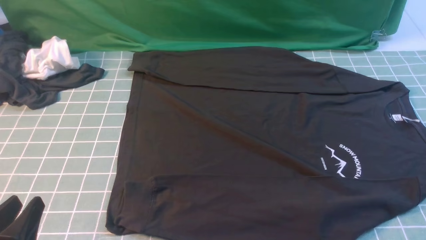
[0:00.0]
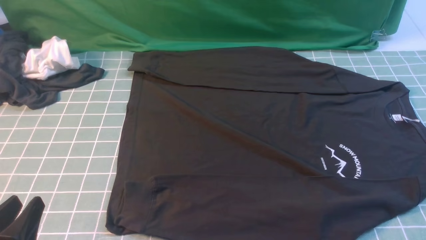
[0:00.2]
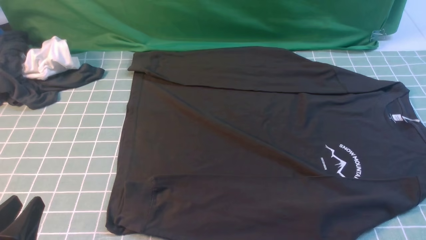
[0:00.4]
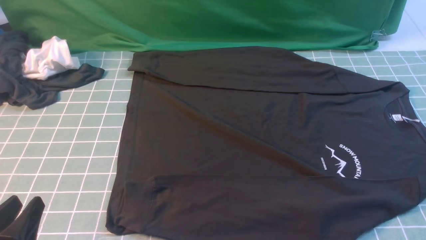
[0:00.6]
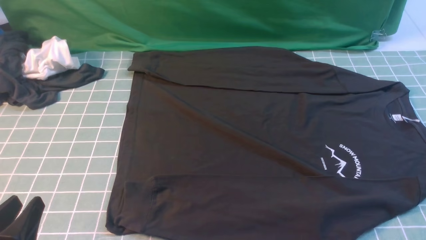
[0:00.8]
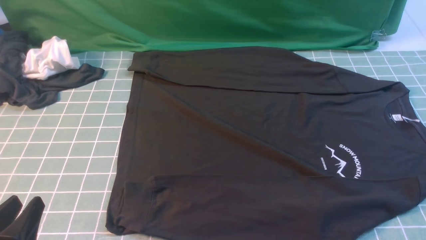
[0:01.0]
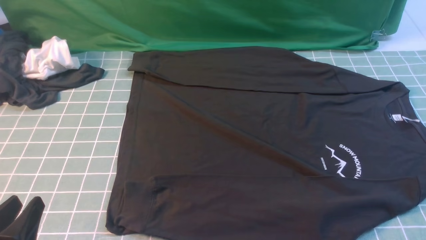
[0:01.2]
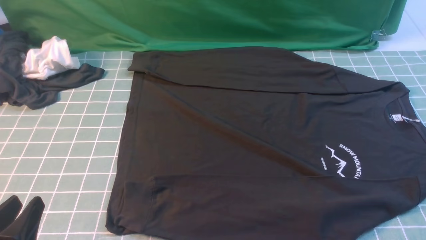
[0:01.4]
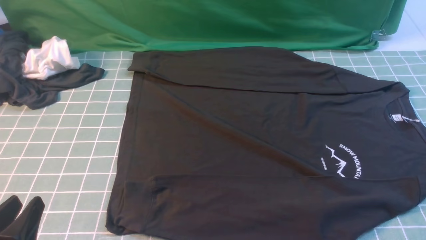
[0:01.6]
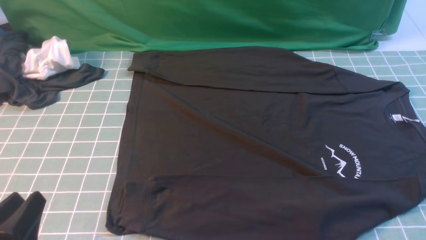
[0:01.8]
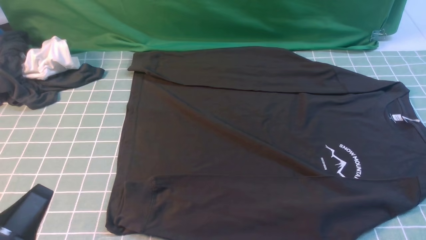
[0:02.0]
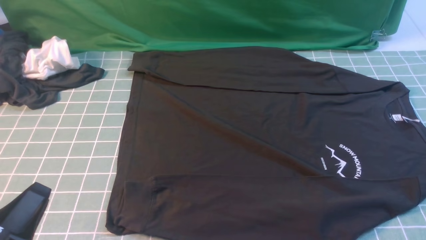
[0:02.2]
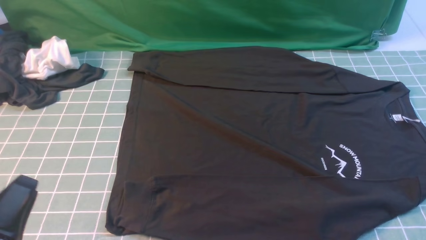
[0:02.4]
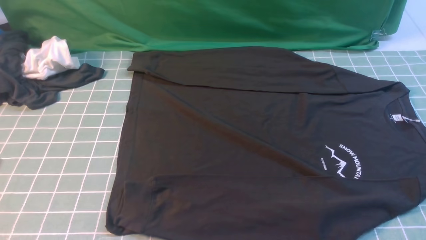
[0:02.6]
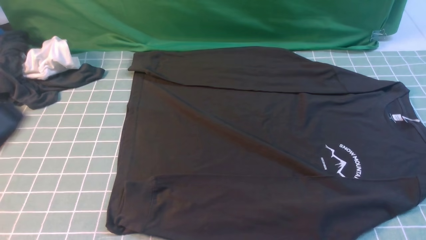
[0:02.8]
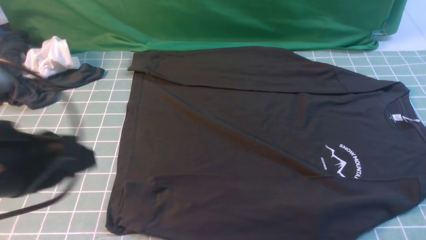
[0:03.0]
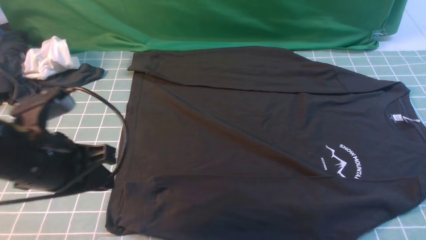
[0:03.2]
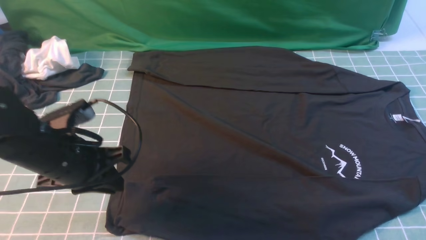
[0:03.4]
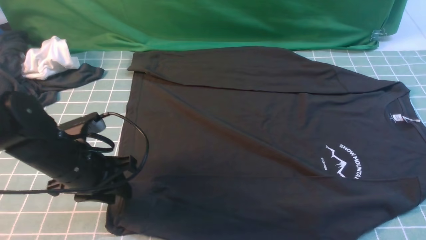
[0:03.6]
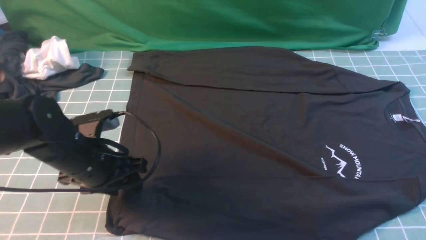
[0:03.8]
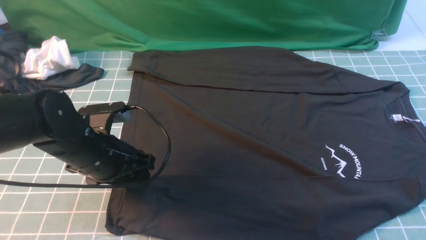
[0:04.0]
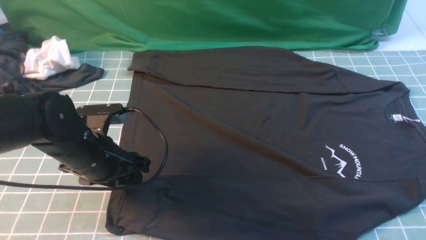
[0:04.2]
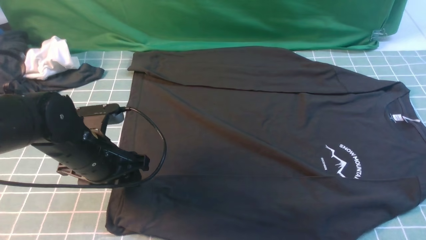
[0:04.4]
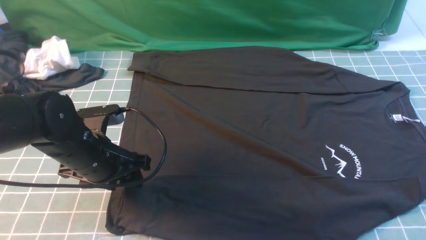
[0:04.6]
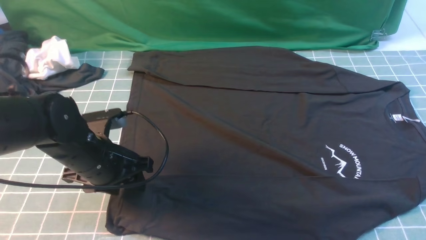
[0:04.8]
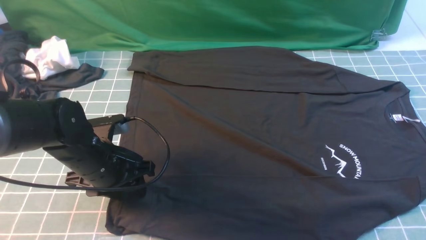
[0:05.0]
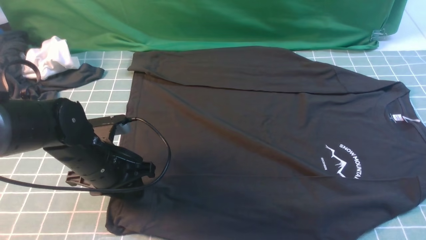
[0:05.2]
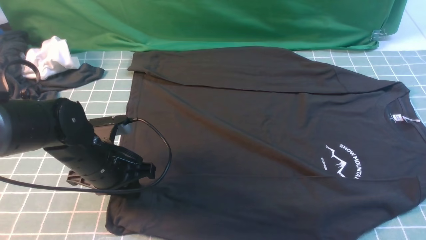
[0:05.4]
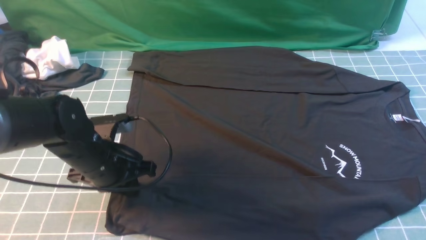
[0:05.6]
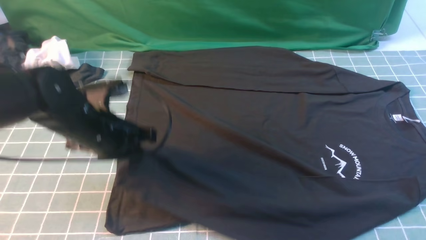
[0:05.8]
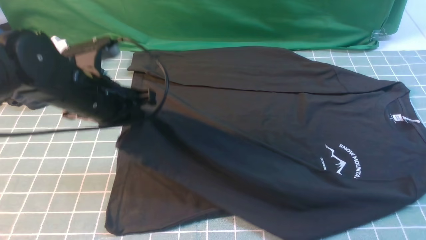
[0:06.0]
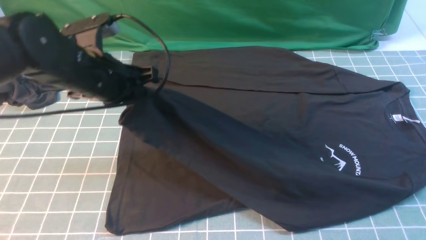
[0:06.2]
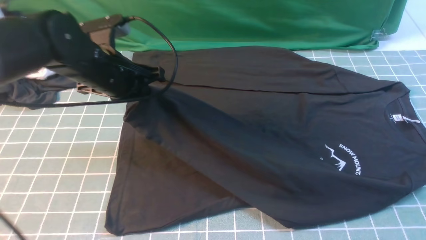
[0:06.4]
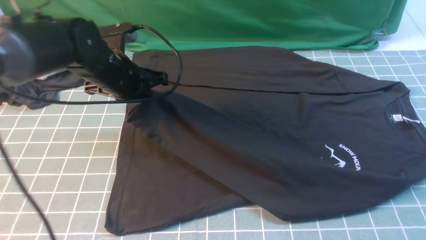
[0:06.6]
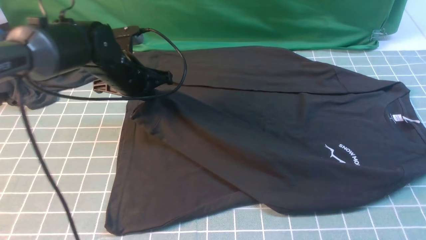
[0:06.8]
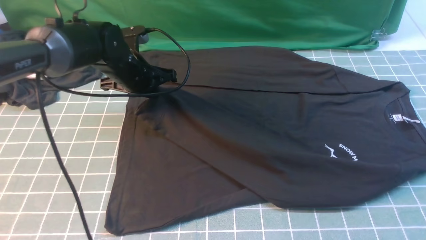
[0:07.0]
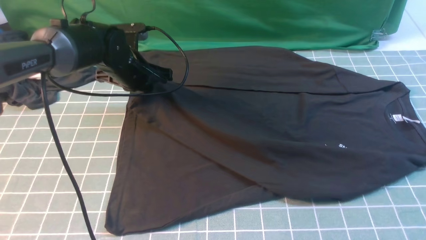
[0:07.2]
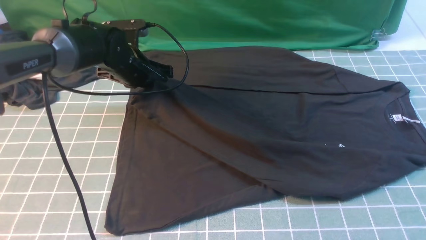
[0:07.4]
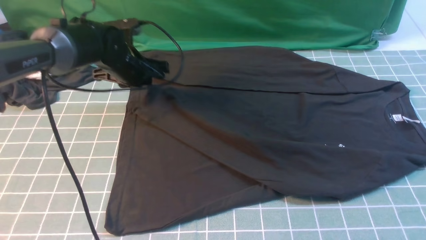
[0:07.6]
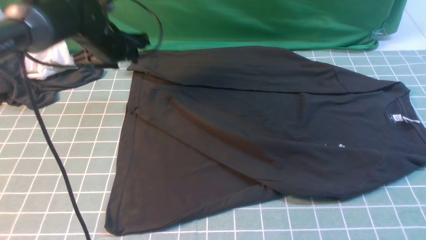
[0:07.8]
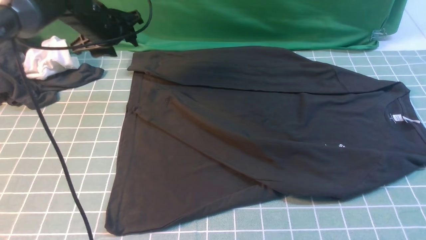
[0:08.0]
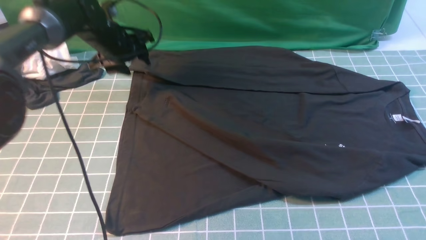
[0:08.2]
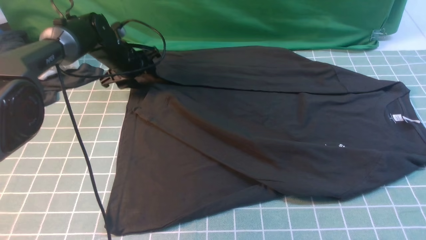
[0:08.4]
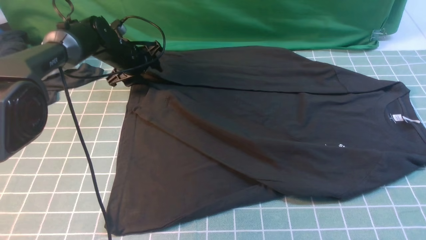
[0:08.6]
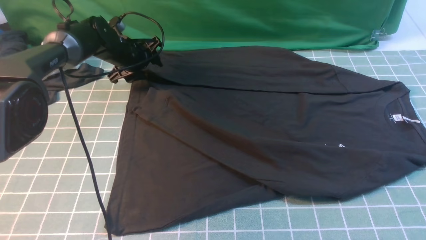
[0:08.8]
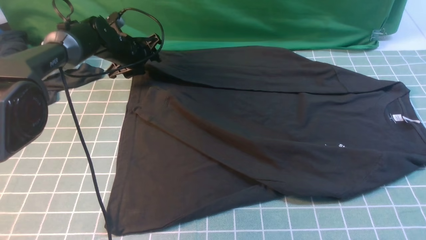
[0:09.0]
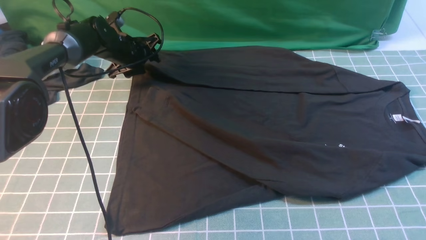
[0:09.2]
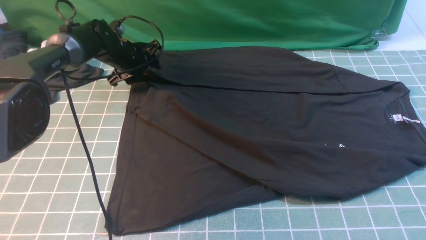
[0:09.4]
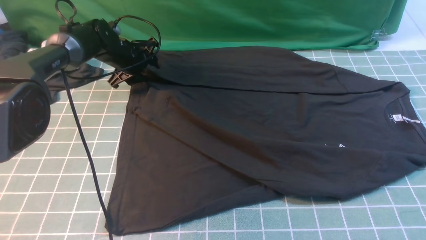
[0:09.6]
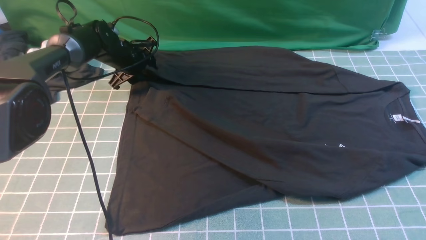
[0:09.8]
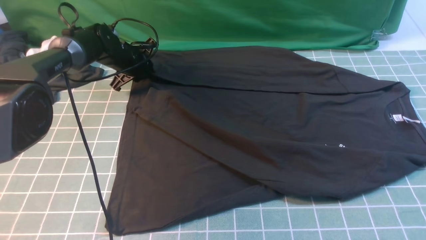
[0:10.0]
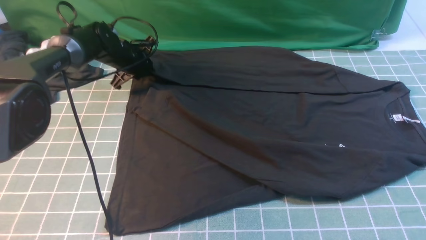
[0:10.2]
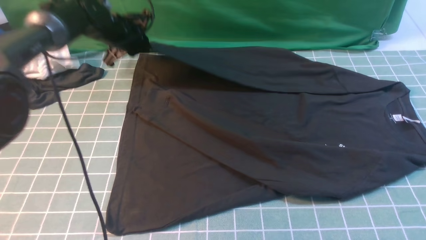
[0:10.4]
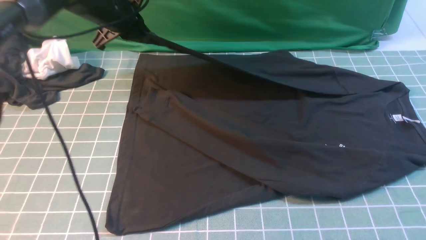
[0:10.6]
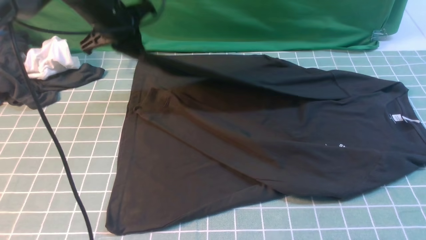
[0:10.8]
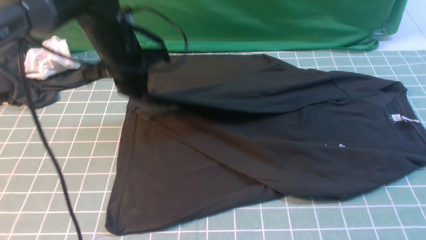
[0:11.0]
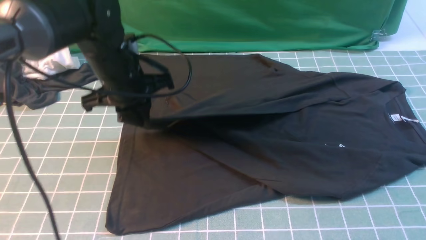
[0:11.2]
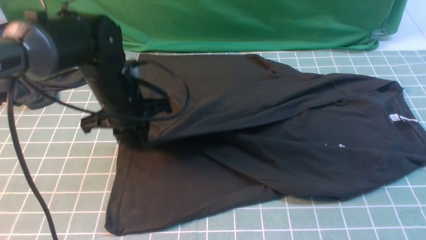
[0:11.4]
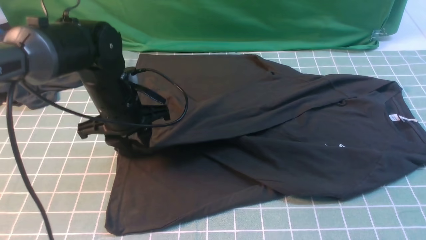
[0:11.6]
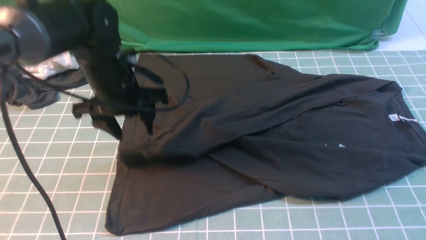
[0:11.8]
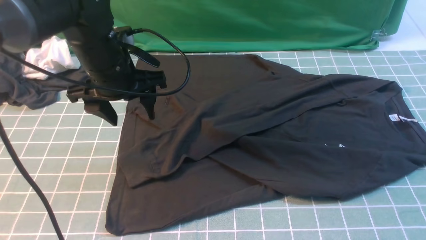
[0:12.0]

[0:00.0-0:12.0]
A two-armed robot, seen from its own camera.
Step, 0:00.0 to 0:05.6: use the left arm to clamp the cuff closest to it.
Step, 0:05.8 to 0:07.6: use the left arm to drag and place the cuff at the centered position on the left edge of the fabric.
Step, 0:07.8 to 0:10.2: use the left arm to clamp the cuff farthest from it.
0:00.0 to 0:01.6: The two grippers keep their place.
0:01.6 to 0:03.0: The left gripper moves upward and forward, about 15 cm, and closes.
0:03.0 to 0:04.4: The left gripper heads downward and forward, covering roughly 20 cm, and opens up.
0:04.4 to 0:06.0: The left gripper moves upward, roughly 10 cm, and closes its fingers.
0:06.0 to 0:07.6: The left gripper is displaced forward by about 15 cm, and opens its fingers.
0:07.6 to 0:09.0: The left gripper is displaced forward and downward by approximately 10 cm, and opens up.
0:09.0 to 0:10.4: The left gripper is displaced upward by some 5 cm, and closes.
0:10.4 to 0:12.0: The left gripper shifts roughly 15 cm backward, and opens.

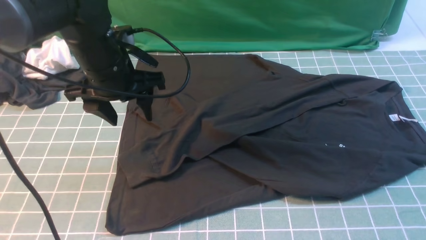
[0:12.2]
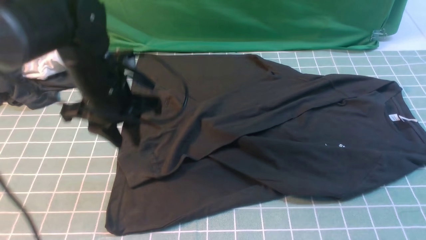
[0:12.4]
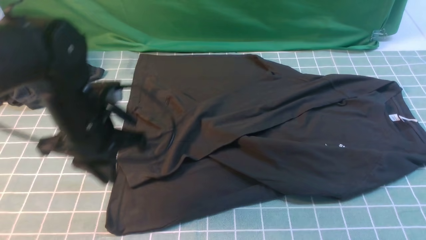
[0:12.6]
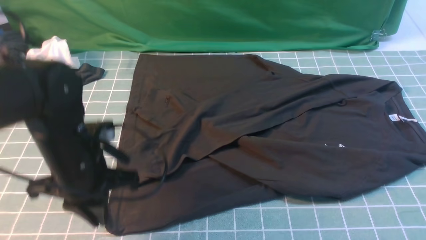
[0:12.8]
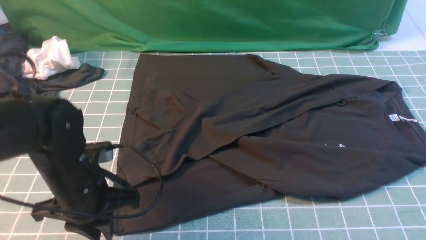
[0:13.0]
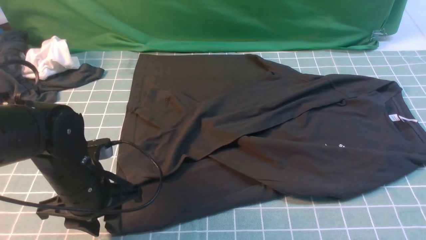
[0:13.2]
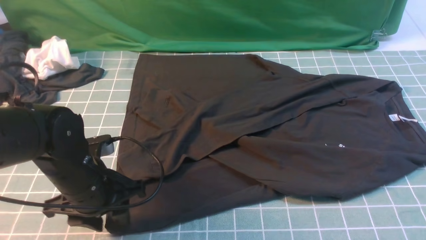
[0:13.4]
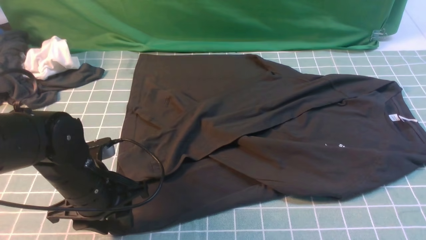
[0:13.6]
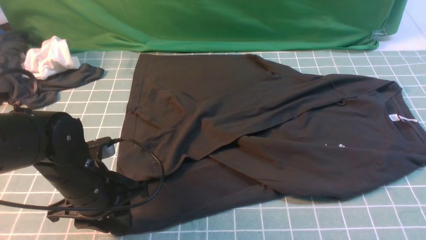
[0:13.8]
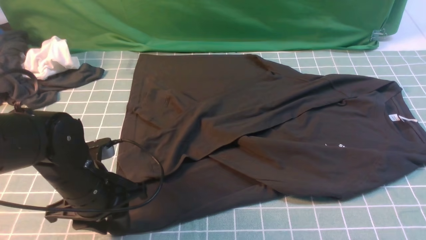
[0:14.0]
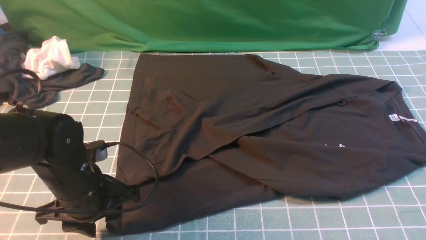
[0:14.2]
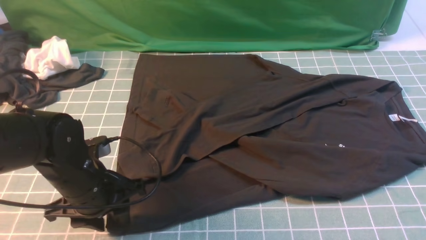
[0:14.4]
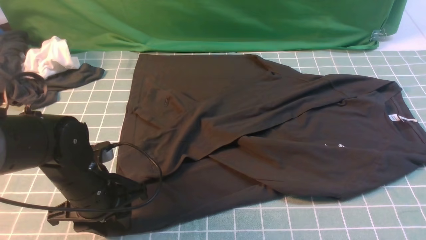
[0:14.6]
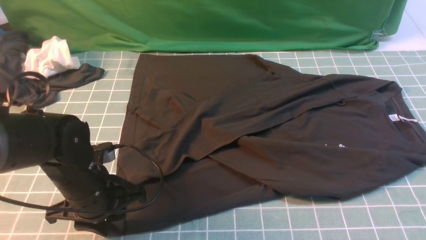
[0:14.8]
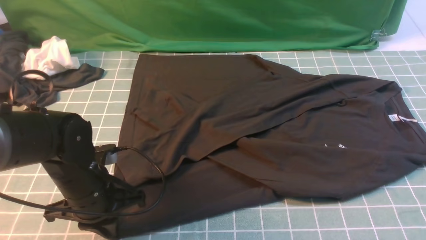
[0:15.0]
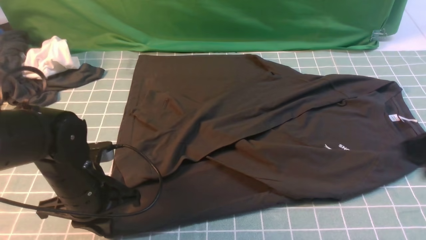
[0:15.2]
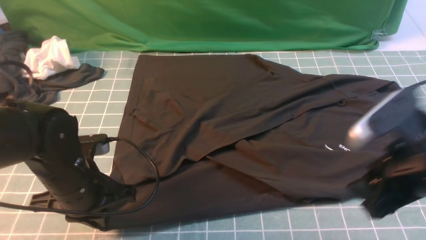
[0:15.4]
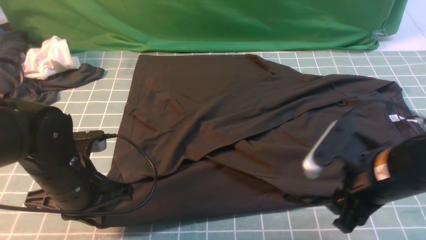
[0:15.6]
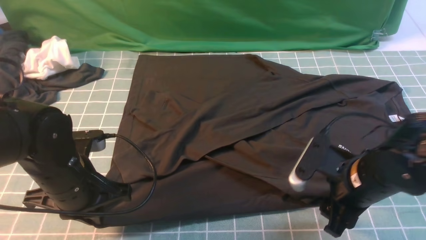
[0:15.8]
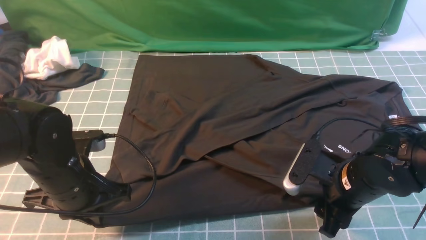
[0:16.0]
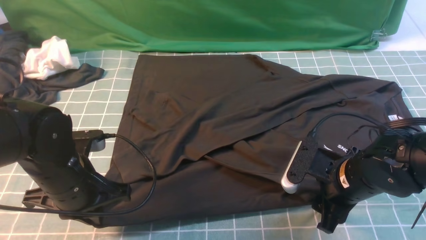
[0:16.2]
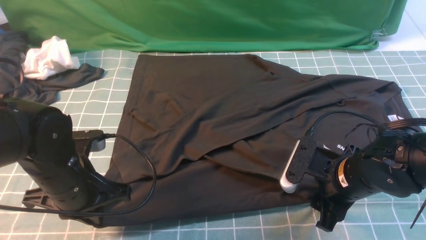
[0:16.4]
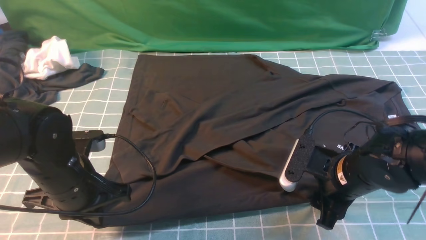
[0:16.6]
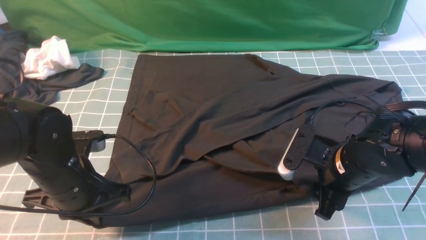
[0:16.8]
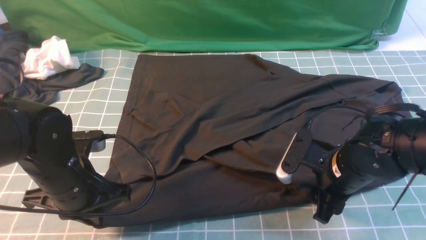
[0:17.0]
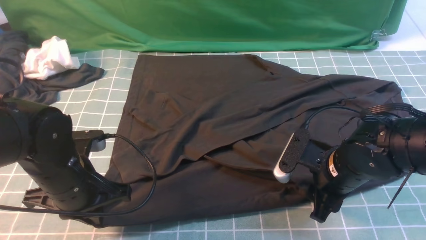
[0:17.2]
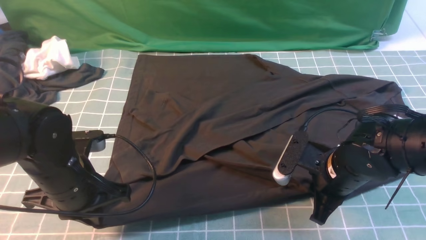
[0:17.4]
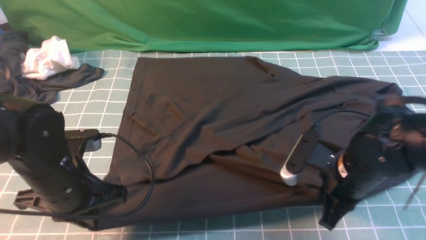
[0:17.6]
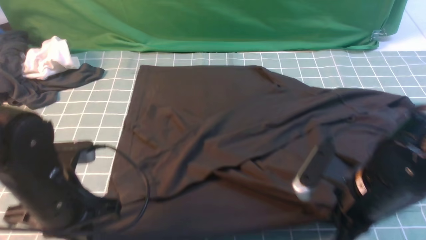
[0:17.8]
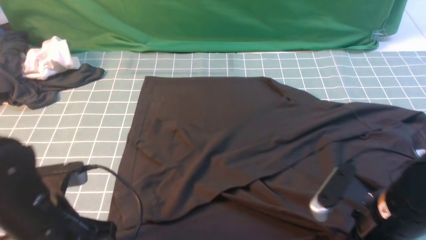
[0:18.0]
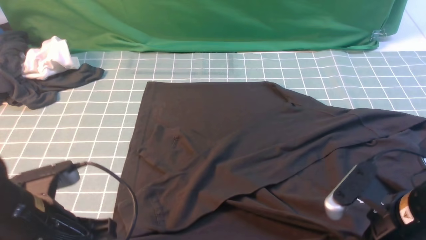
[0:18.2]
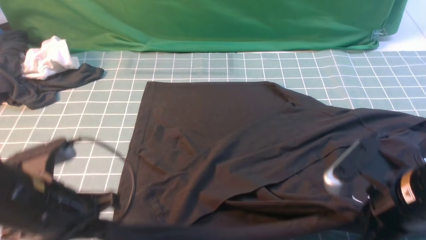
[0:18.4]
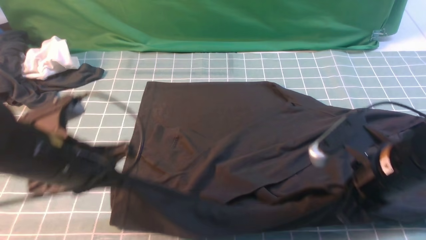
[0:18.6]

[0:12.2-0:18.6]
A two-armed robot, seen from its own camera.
Step, 0:12.2 to 0:18.2: use both arms simultaneously to clamp the lower edge of the clothing fabric.
0:12.2 to 0:13.8: The left gripper heads backward and downward, covering about 15 cm, and closes, then reopens.
0:13.8 to 0:15.4: The right gripper goes about 15 cm downward and to the left, and opens up. The left gripper closes.
0:15.4 to 0:17.0: The right gripper goes approximately 15 cm downward, forward and to the left.
0:17.0 to 0:18.6: Both grippers move upward, some 5 cm. The right gripper closes up.
